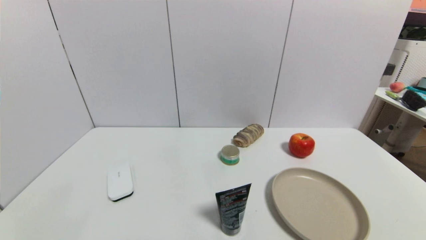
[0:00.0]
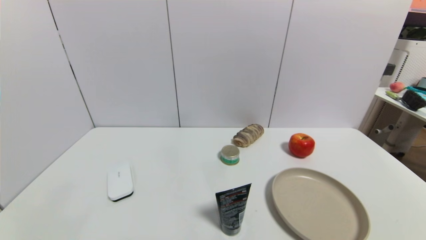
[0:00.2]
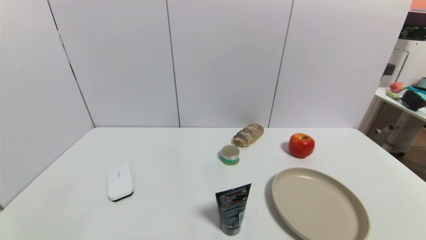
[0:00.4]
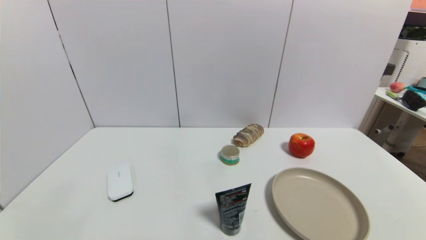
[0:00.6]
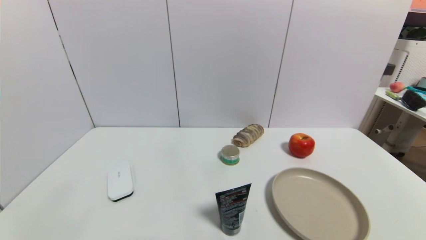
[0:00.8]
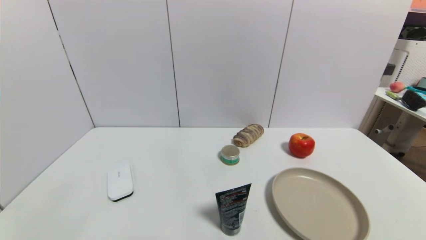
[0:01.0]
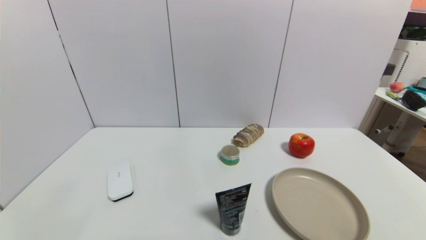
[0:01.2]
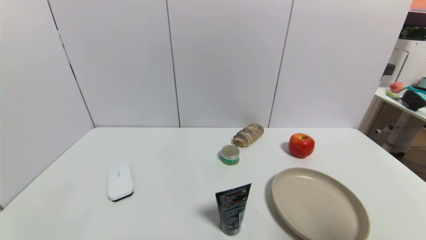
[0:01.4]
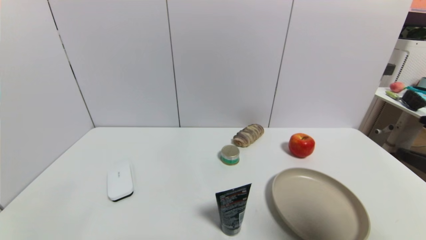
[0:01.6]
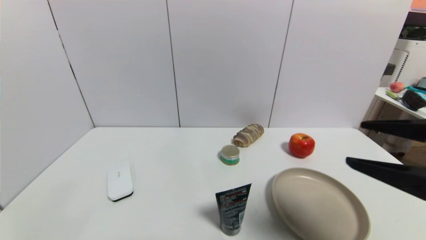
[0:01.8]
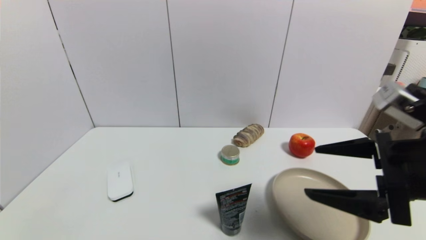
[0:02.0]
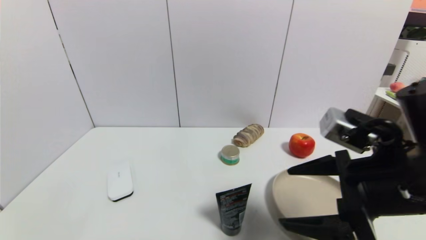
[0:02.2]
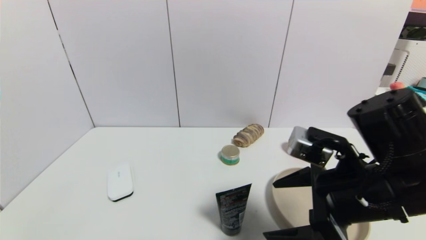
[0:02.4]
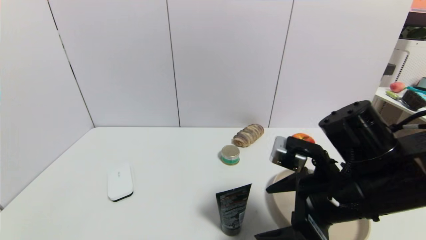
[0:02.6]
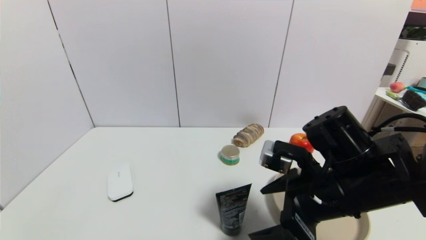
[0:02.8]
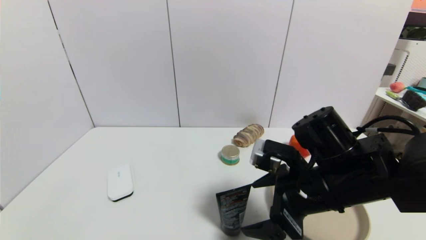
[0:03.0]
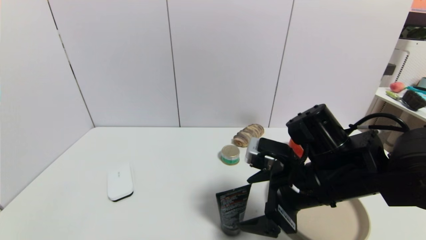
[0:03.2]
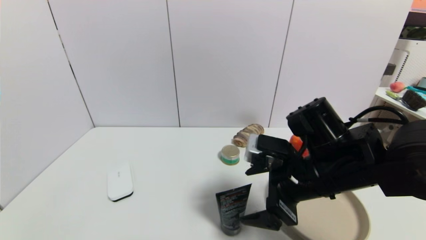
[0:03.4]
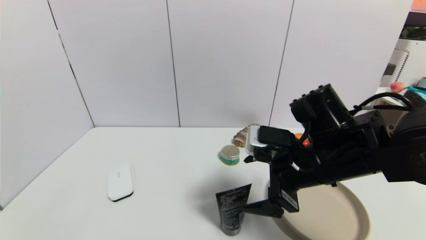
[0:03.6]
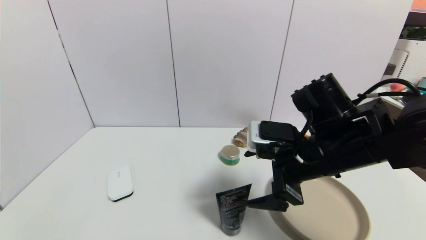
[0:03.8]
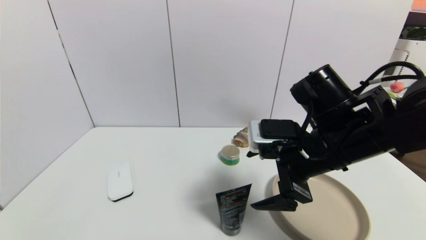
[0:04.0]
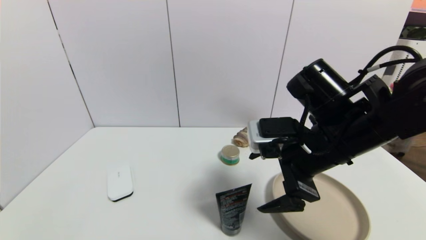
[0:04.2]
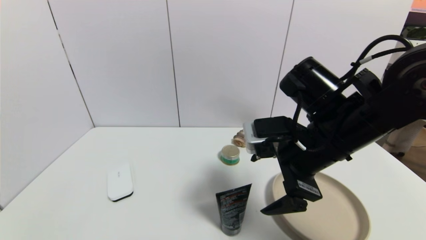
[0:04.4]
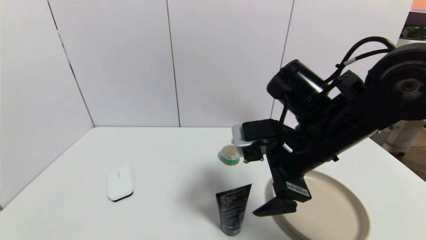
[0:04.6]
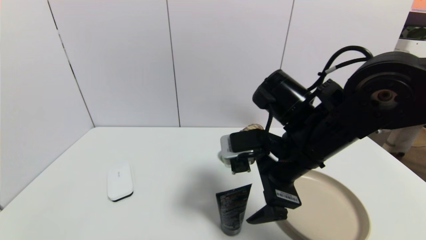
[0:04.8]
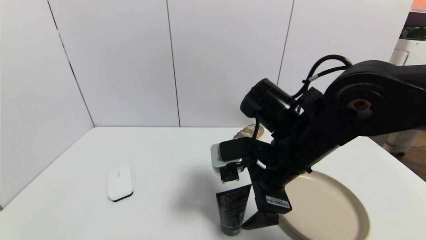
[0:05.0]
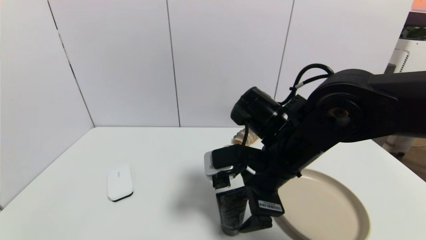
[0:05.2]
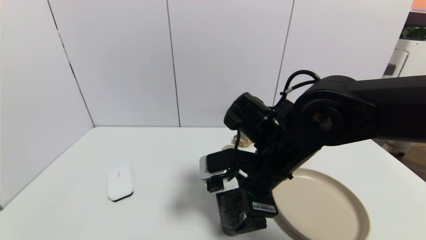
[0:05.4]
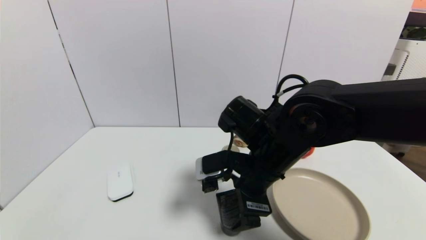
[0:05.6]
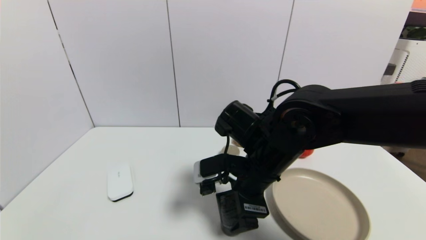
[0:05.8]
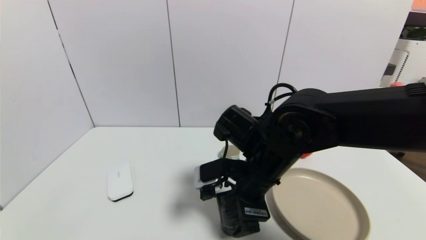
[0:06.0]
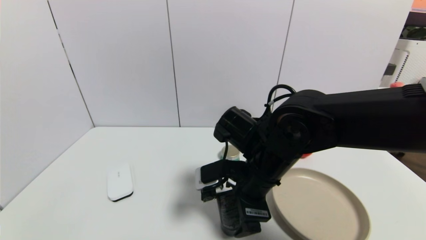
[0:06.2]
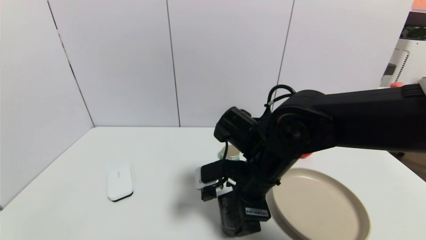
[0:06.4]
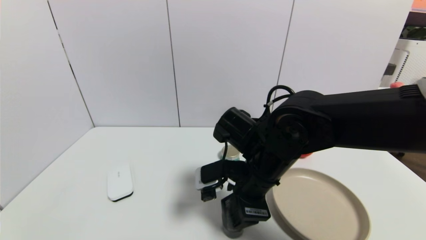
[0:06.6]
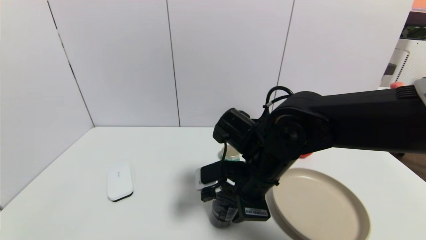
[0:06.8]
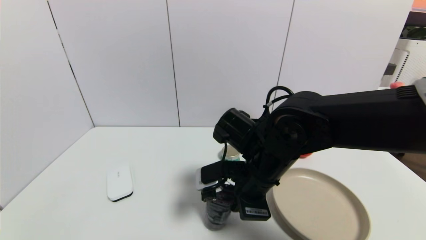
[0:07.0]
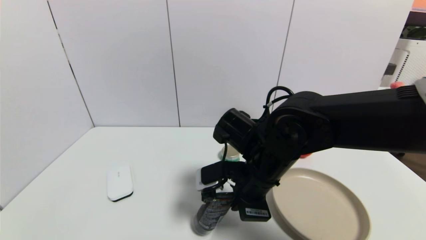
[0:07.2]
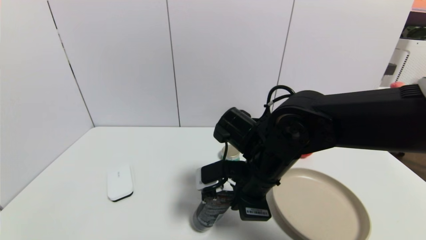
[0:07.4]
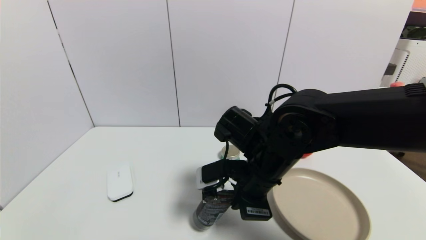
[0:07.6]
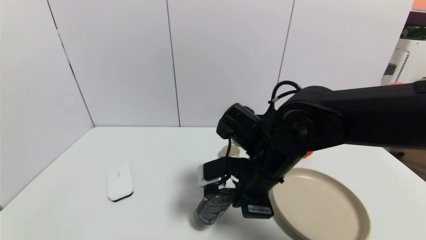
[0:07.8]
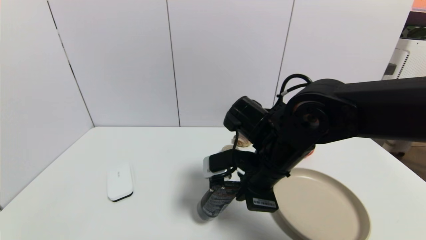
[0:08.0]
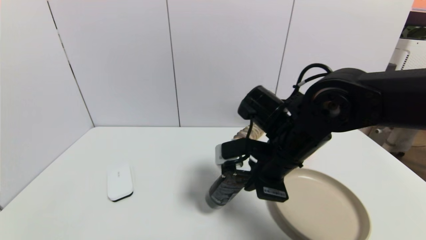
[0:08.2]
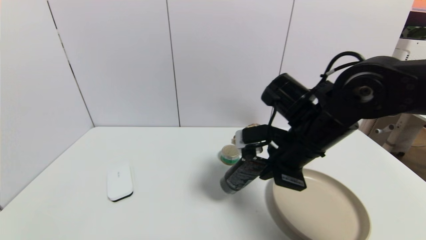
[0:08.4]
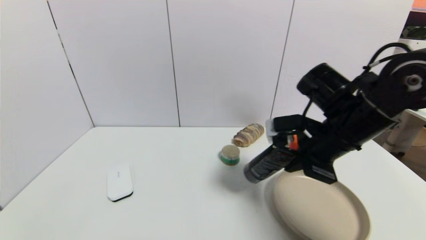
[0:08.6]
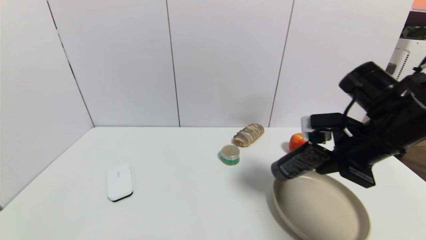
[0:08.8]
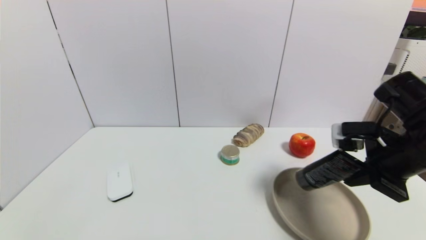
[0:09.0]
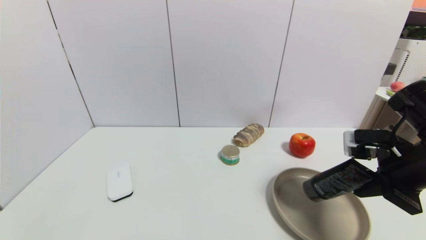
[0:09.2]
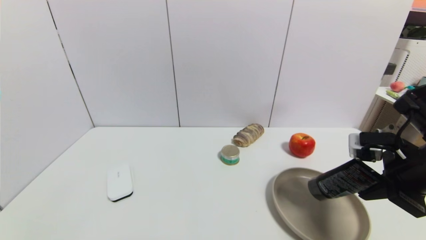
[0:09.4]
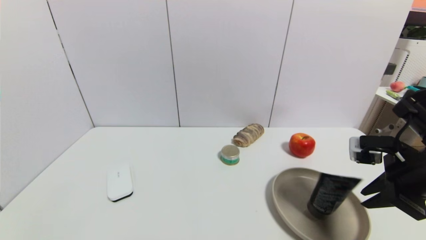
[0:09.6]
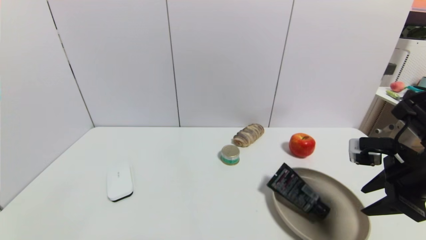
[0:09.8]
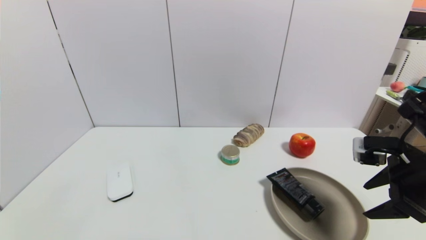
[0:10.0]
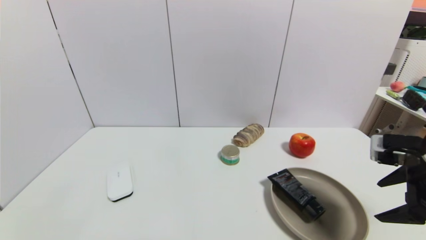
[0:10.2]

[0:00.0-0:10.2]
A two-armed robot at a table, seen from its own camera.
Task of the whole recording: use a gripper to pick the target object and place on the brown plate.
Step, 0:00.0 to 0:08.0: Grasp the soft facial cleanser with the right gripper.
Step, 0:08.2 to 0:10.0: Place the soft facial cleanser on the brown plate with the right gripper.
0:01.4 to 0:03.0: The right gripper shifts some 25 cm to the left, forward and downward.
0:03.0 to 0:04.4: The right gripper goes about 5 cm upward.
0:04.4 to 0:05.8: The right gripper moves to the left and downward, about 10 cm.
0:05.8 to 0:07.2: The right gripper closes up.
0:07.2 to 0:08.8: The right gripper is displaced to the right by some 20 cm.
0:08.8 to 0:10.2: The right gripper is displaced to the right and backward by some 10 cm, and opens.

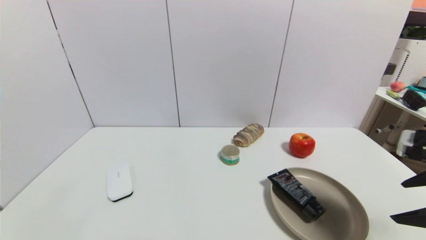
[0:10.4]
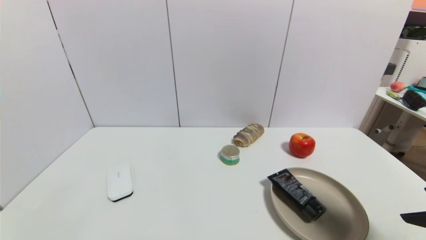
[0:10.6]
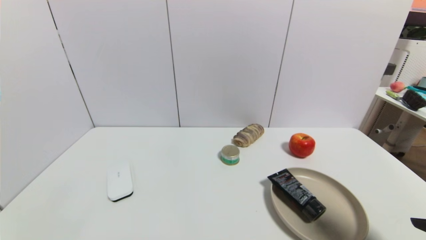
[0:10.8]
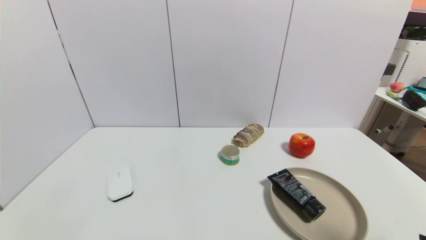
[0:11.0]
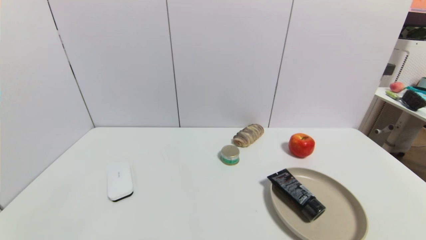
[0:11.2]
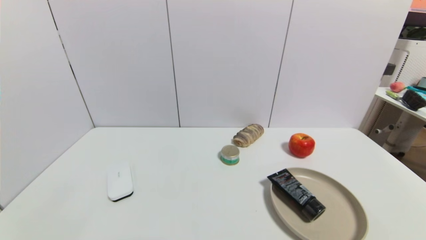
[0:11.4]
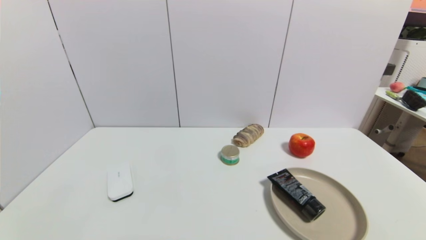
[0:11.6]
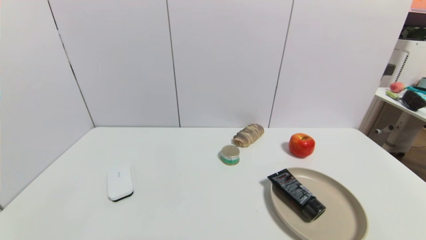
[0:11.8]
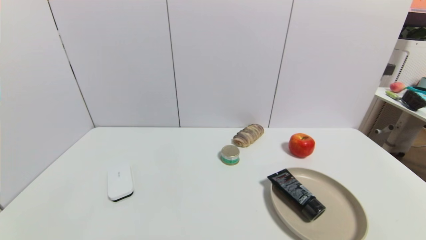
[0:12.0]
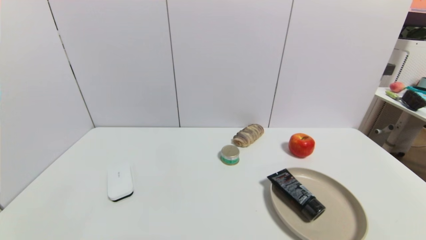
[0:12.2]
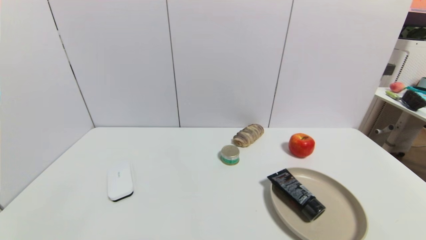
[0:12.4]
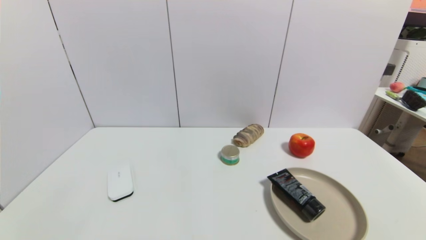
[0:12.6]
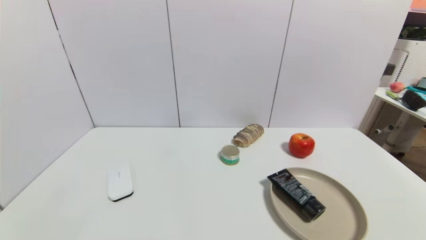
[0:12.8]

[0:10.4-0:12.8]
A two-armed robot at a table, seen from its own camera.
Task of the whole recording: use a gripper to pick the target object and place on the brown plate.
0:10.4 to 0:11.6: The right gripper is displaced backward and downward by about 20 cm.
